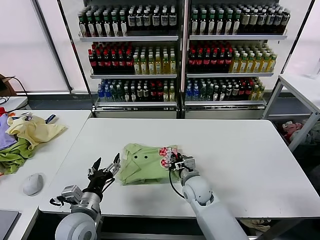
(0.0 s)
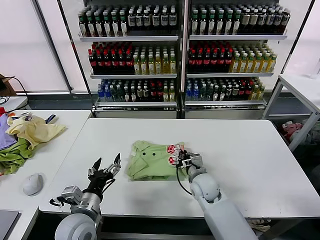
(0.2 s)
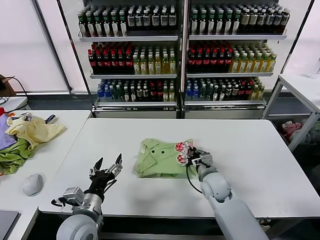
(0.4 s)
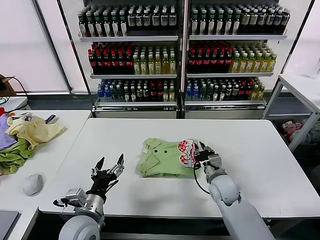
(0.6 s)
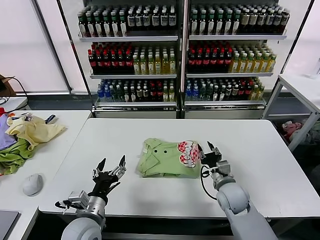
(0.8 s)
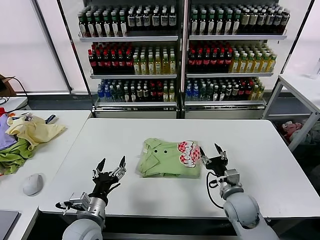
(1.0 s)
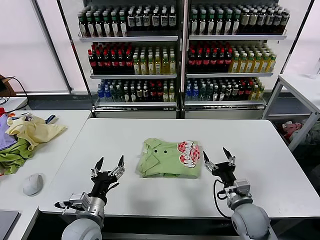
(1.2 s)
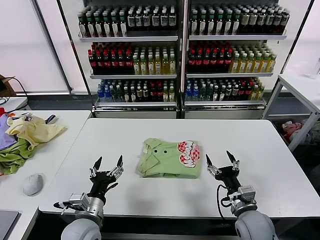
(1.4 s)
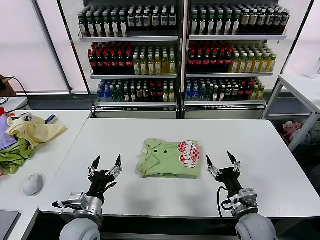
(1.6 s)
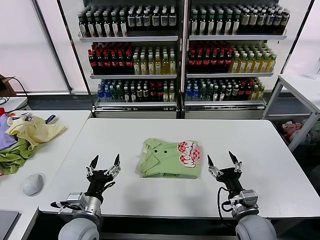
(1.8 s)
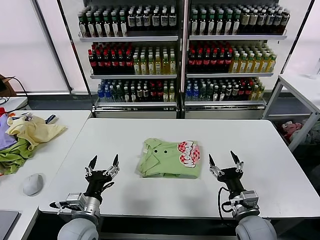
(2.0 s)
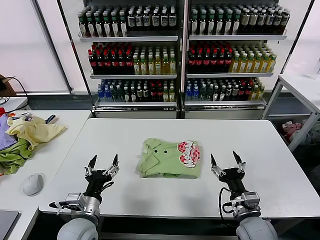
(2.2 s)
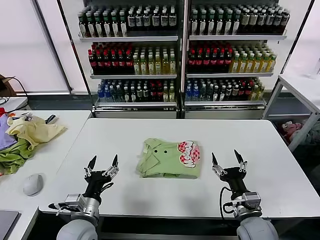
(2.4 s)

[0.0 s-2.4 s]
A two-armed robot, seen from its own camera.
Task of the whole recording: fold and organize the clothes.
0.0 to 1.2 s: The right gripper shifts some 15 cm to the right and backward, and opens up.
1.2 to 2.4 s: The right gripper heads backward, covering about 5 cm.

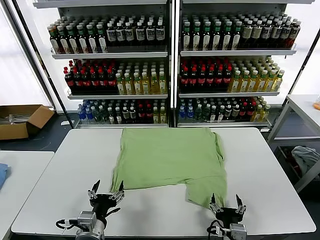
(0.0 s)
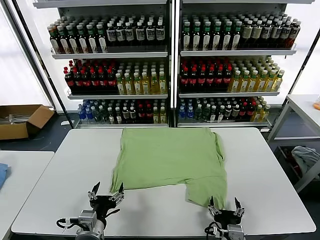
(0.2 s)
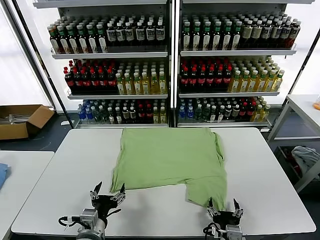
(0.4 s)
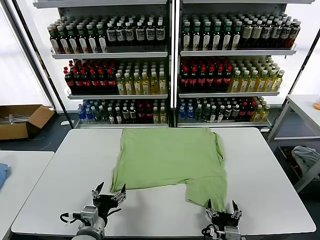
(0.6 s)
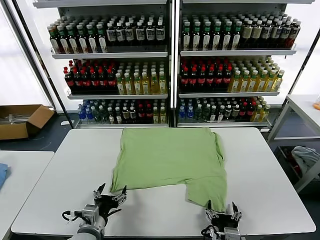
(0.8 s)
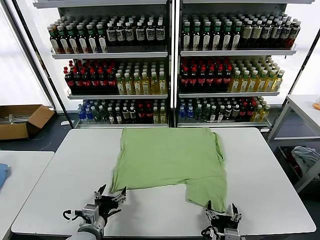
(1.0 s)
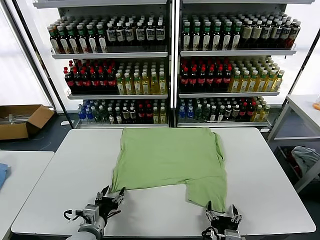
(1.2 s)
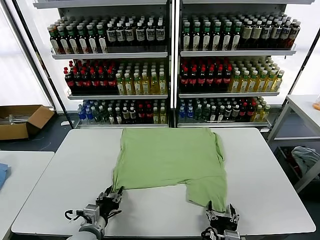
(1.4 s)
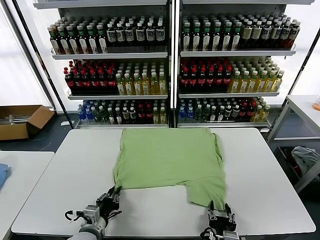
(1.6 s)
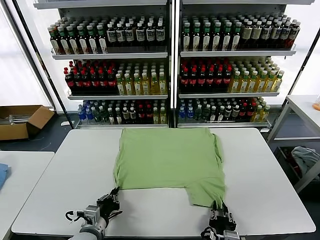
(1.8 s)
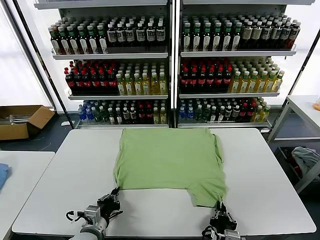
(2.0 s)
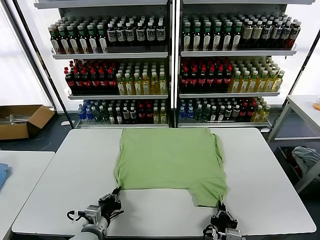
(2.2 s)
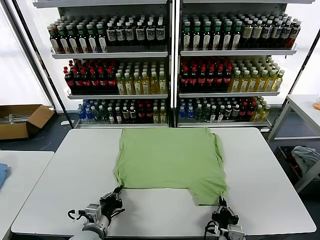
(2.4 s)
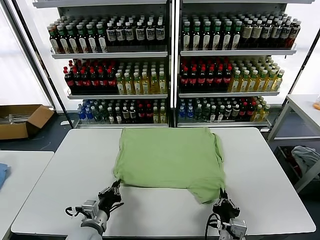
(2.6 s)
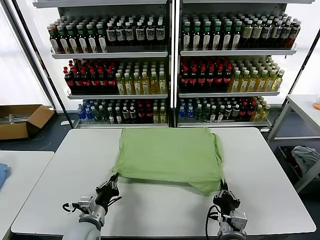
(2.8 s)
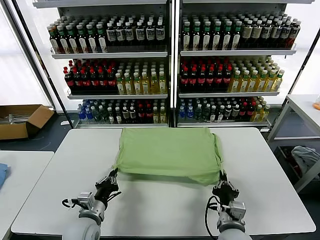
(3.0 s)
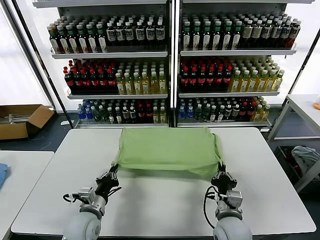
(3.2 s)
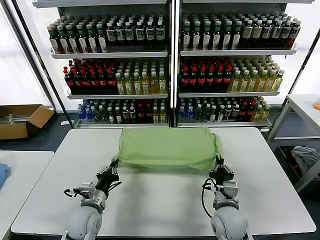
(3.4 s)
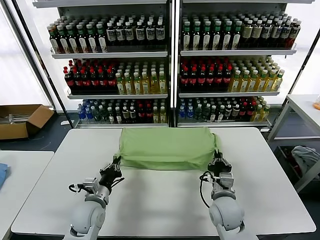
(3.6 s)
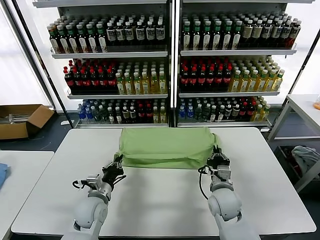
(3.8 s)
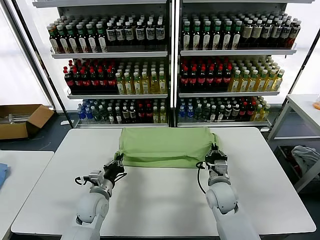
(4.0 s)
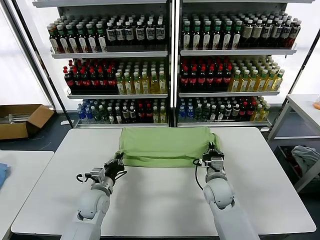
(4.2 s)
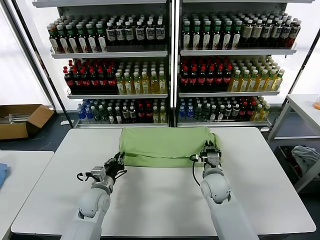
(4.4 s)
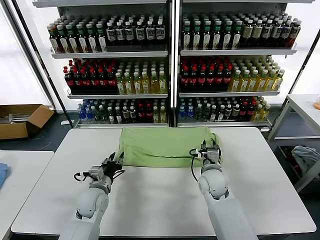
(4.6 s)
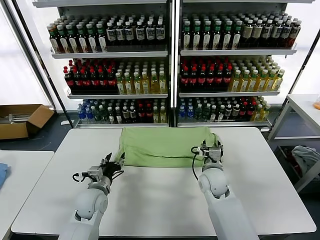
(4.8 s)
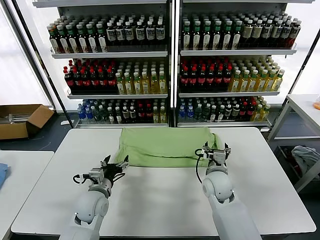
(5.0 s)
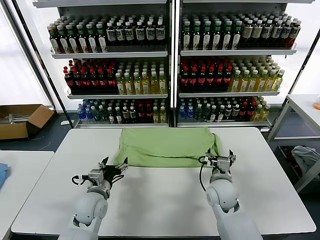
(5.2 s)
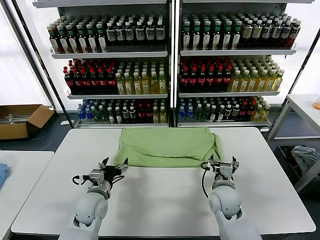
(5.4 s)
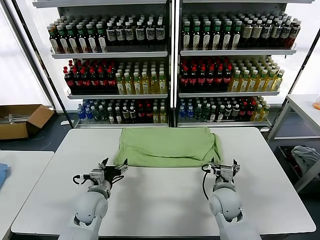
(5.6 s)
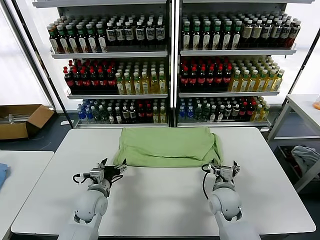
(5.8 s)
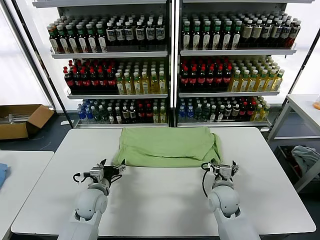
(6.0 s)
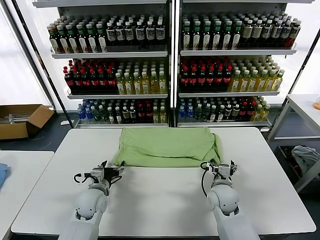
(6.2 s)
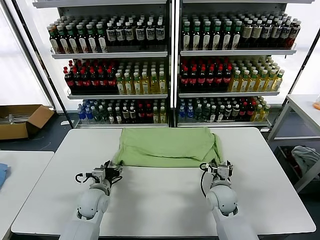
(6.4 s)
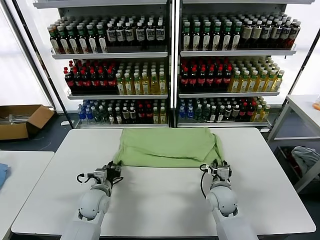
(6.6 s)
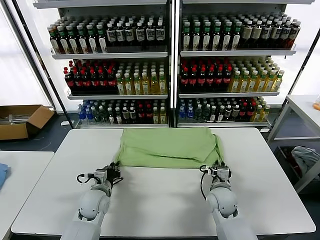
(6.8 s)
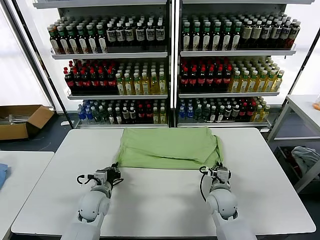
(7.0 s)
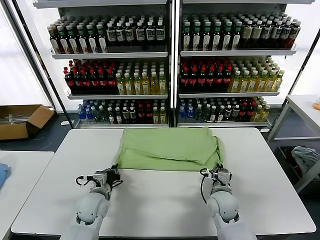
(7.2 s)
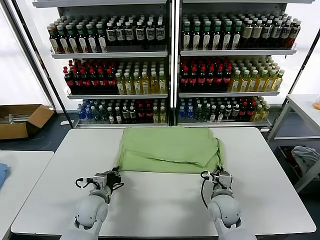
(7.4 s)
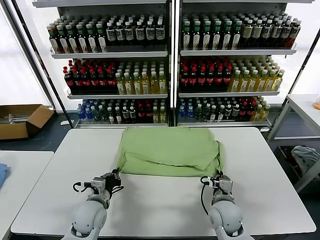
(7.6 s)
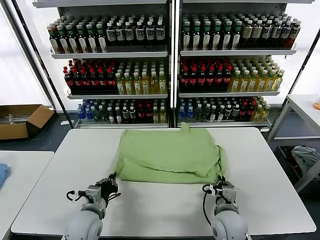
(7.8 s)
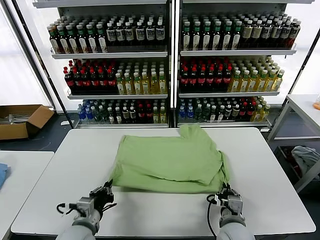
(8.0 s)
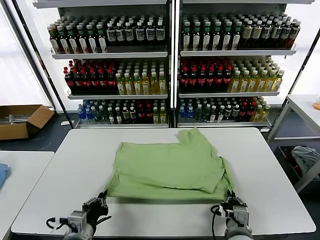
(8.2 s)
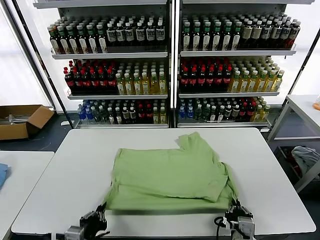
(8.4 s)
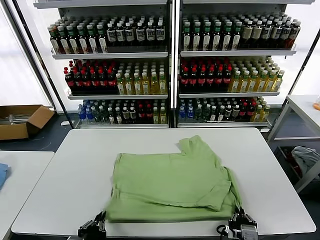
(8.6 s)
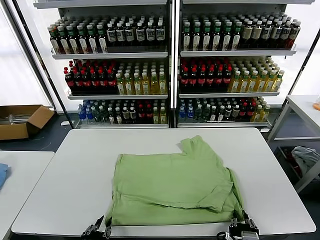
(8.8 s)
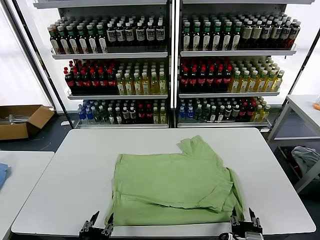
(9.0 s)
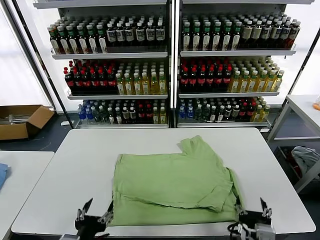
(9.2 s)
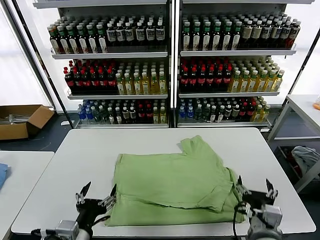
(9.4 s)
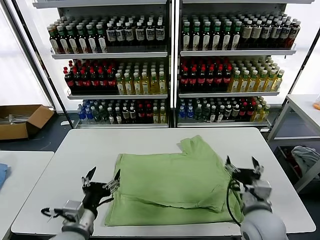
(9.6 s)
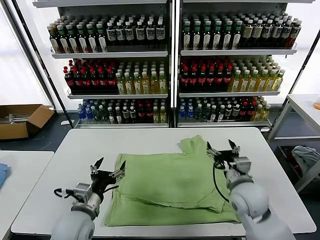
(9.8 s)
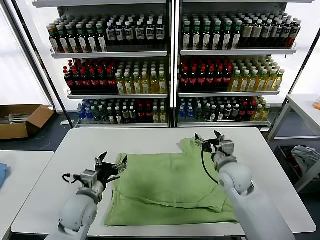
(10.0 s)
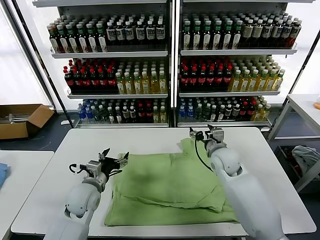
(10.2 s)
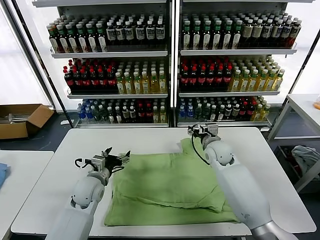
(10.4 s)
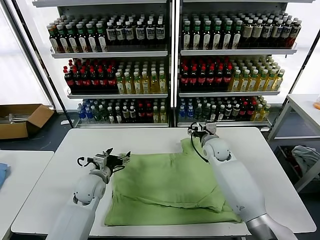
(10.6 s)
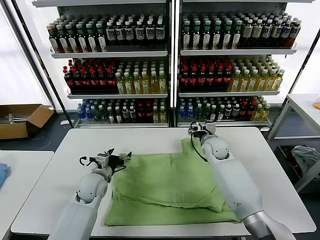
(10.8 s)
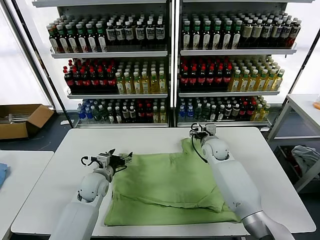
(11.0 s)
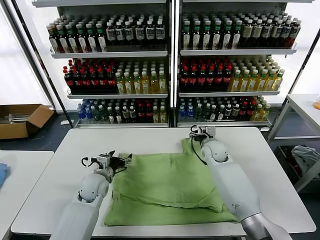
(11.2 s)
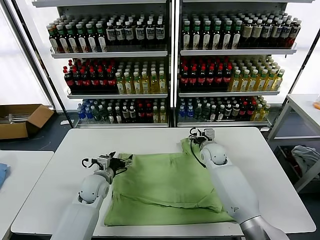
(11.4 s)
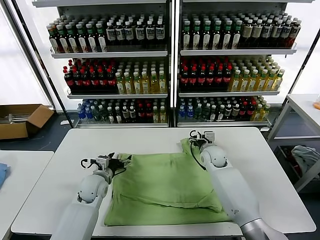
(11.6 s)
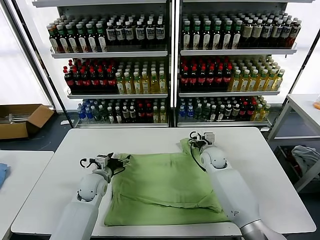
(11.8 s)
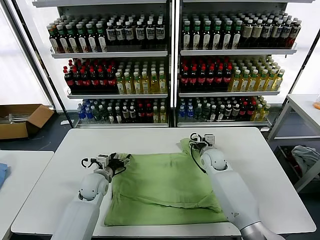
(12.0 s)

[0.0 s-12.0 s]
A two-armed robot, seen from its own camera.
Task of the whole recording: fold and organize the clothes.
Step, 0.0 to 2.0 s: use both grippers simultaneously to clamp the lower edge of the clothing fabric.
Step, 2.2 to 4.8 s: use both grippers to drag the lower edge of the fabric forward and fold it over the upper edge.
Step, 5.0 to 8.8 s: Drag the clothes downward with both gripper.
1.6 to 3.0 s: The right gripper is displaced forward by roughly 10 cm, and closes its fingers.
3.0 to 4.4 s: The left gripper heads forward, covering approximately 10 cm. The right gripper shifts roughly 15 cm forward.
4.4 to 6.0 s: The left gripper opens. The right gripper moves about 5 cm, and opens up.
6.0 to 7.6 s: The left gripper closes. The right gripper moves backward, roughly 5 cm, and closes.
7.6 to 9.0 s: Both grippers move backward, roughly 20 cm. The right gripper opens up. The left gripper opens its fingers.
9.0 to 10.4 s: Both grippers travel together forward, about 35 cm. The left gripper opens.
10.4 to 12.0 s: The left gripper ends up about 5 cm from where it was, while the right gripper travels downward by roughly 5 cm.

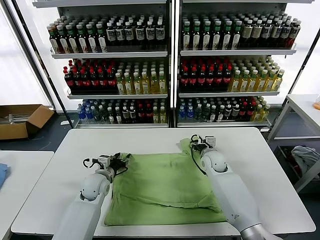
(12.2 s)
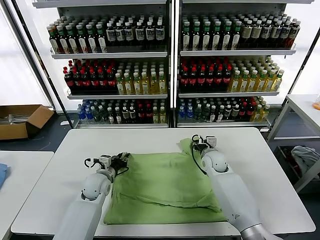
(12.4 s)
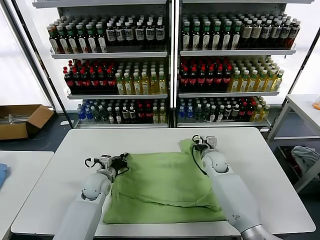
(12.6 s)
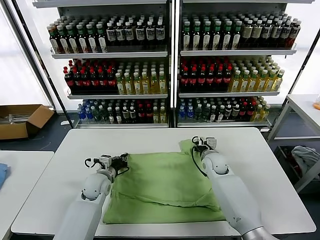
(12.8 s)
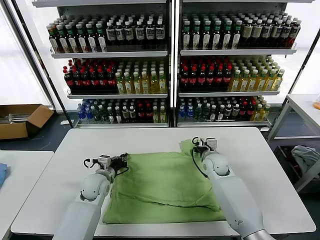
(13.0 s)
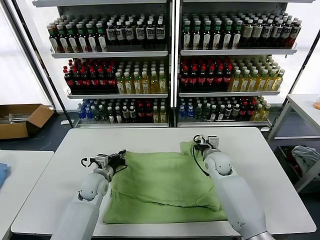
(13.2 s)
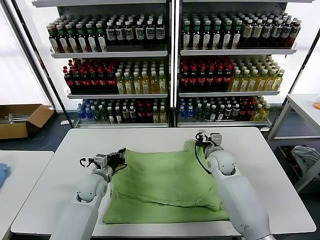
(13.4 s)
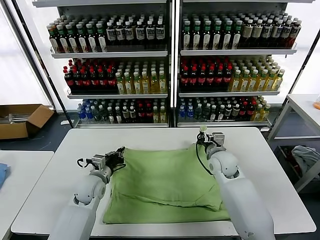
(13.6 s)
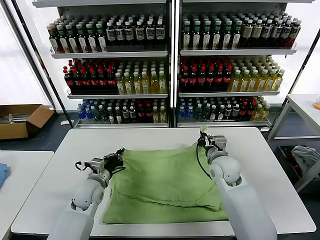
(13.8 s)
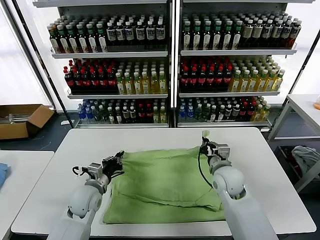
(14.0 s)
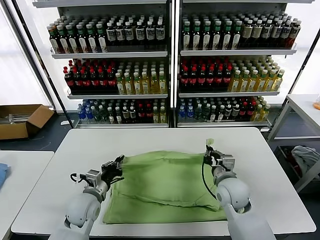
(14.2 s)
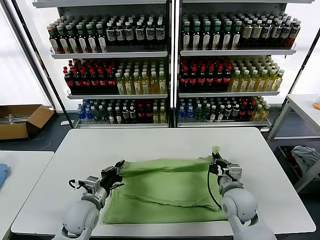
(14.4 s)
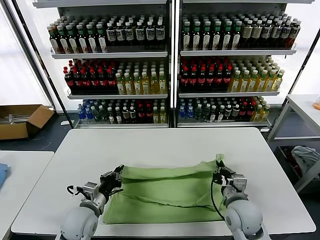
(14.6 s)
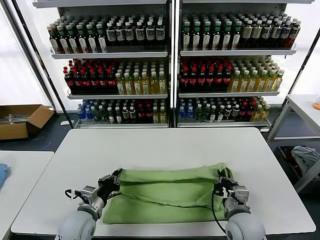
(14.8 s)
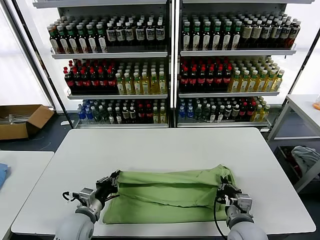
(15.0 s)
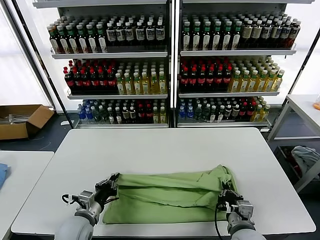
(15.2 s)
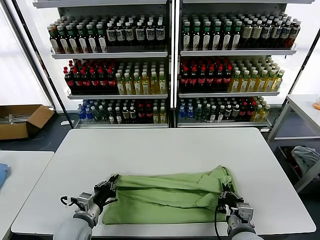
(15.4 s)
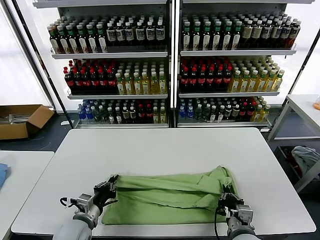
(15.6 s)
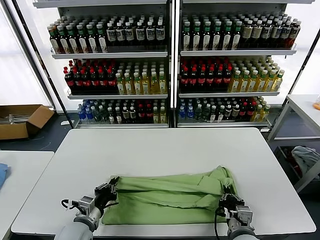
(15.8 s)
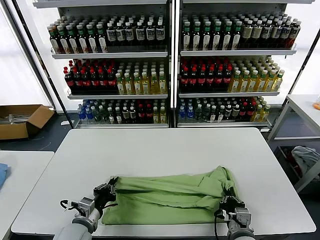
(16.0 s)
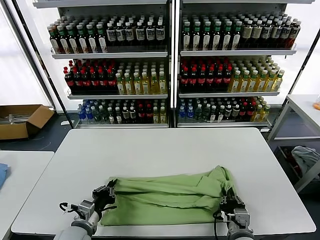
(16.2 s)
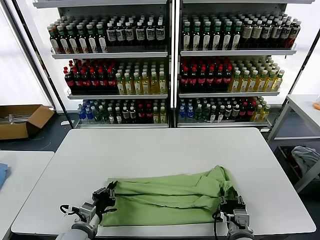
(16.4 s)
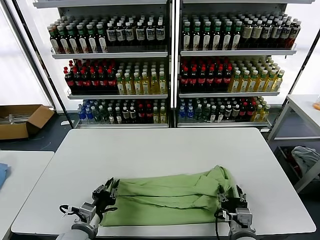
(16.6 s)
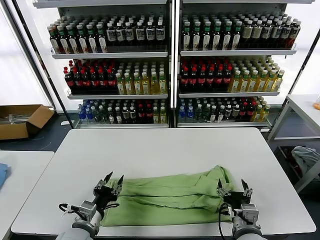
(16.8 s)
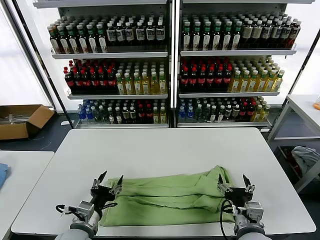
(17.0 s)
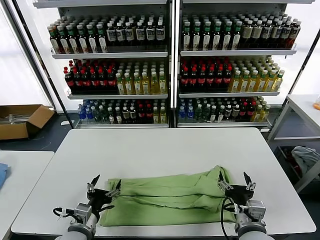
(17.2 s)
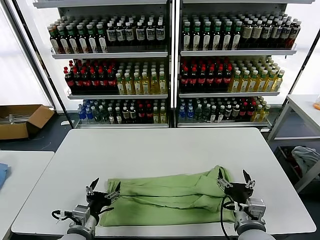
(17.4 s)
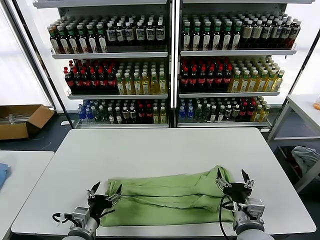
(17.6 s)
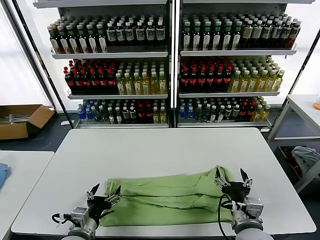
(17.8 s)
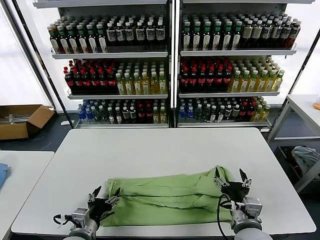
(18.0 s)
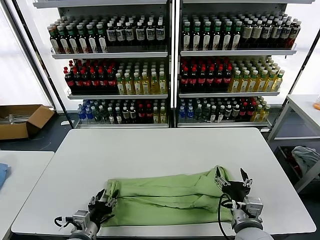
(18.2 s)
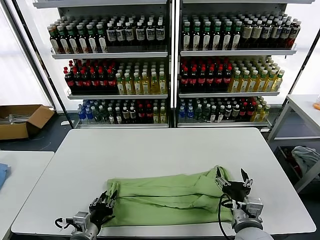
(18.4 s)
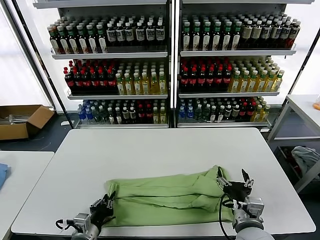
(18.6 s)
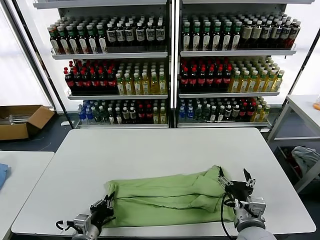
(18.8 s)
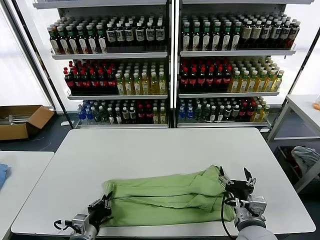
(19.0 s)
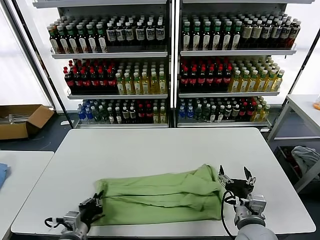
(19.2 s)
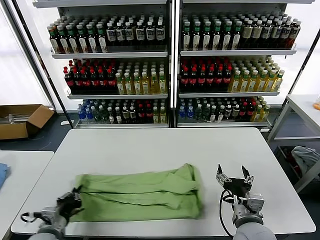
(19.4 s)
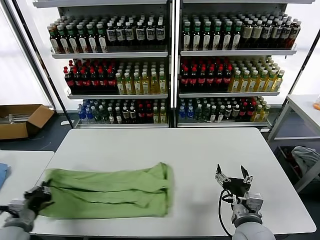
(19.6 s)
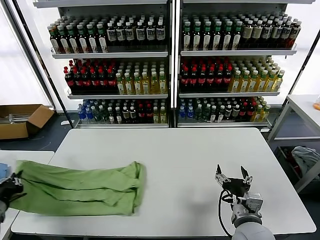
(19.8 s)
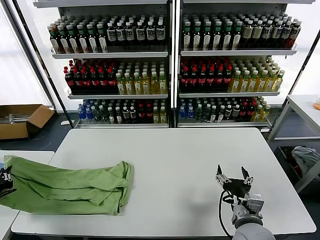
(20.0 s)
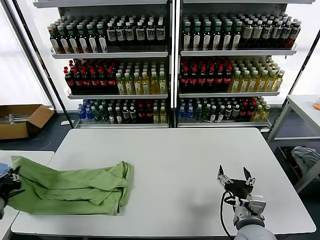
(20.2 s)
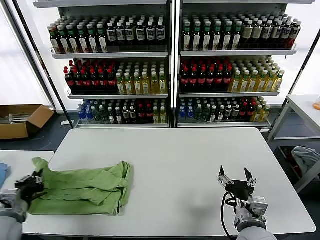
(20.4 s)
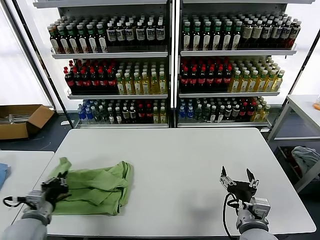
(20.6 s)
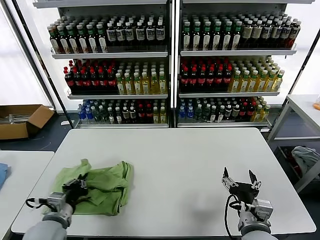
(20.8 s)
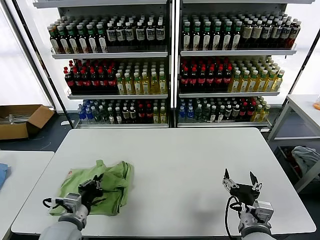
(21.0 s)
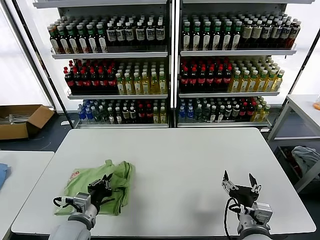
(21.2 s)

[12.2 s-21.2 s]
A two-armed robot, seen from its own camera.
Task of the whole recording: fold and organize the clothes.
Step, 13.0 to 16.8 s: use both grippers to drag the upper edge of the fabric backward and fold it over the lower edge.
Step, 17.0 to 18.6 s: use the left gripper to clamp the left edge of the fabric.
12.2 to 13.8 s: The left gripper closes up. The right gripper travels backward and upward by some 10 cm, and closes up.
13.8 to 15.2 s: The left gripper is displaced backward by roughly 10 cm; the right gripper shifts about 20 cm backward.
15.2 to 16.6 s: The right gripper opens up.
16.6 to 18.2 s: The right gripper travels upward by about 5 cm, while the left gripper opens.
18.2 to 19.8 s: The left gripper shifts about 20 cm to the left, and closes up.
19.8 to 21.2 s: The left gripper goes roughly 20 cm to the right.
